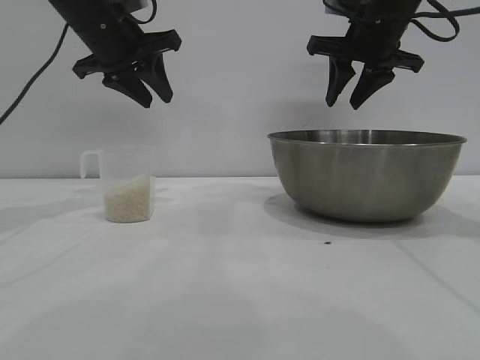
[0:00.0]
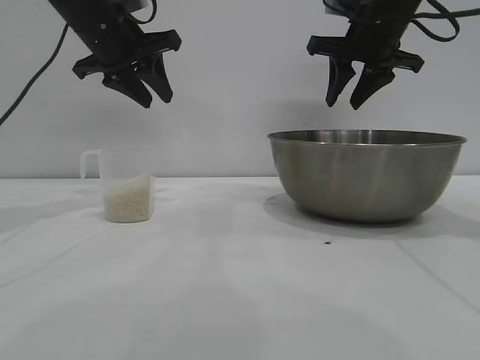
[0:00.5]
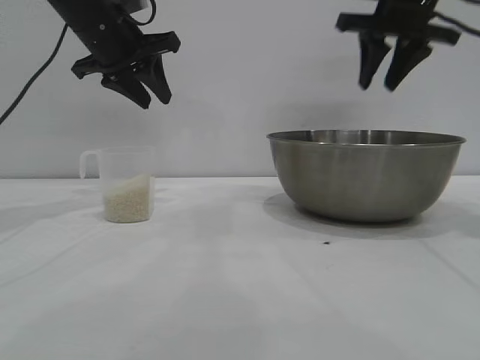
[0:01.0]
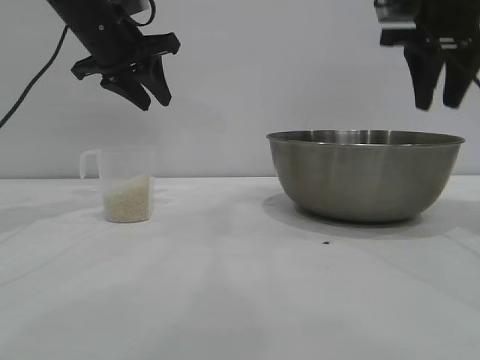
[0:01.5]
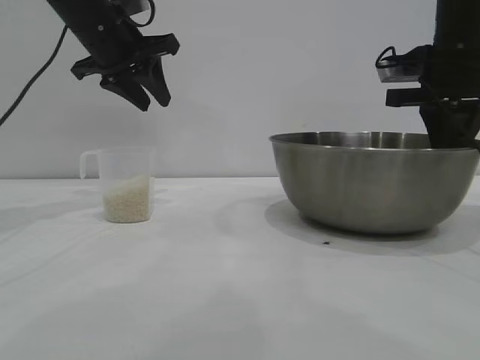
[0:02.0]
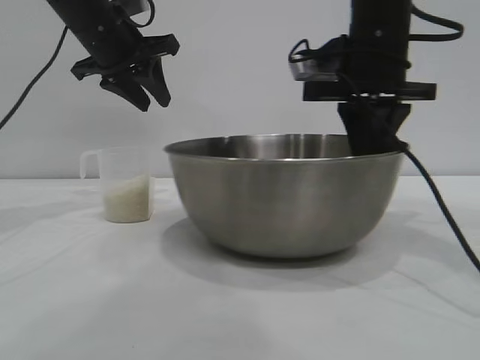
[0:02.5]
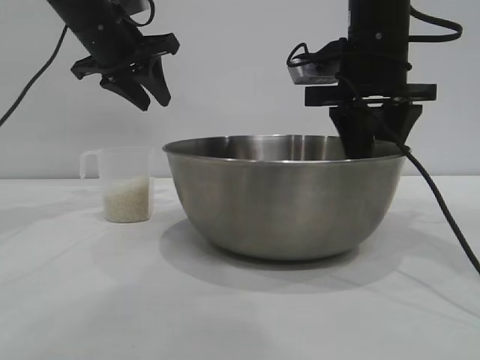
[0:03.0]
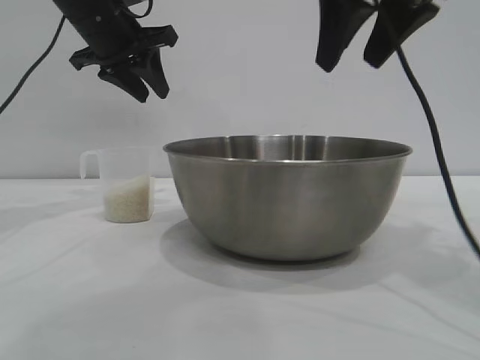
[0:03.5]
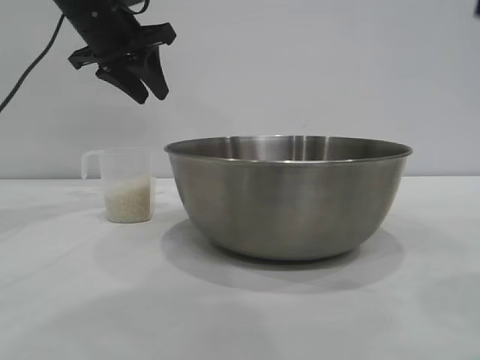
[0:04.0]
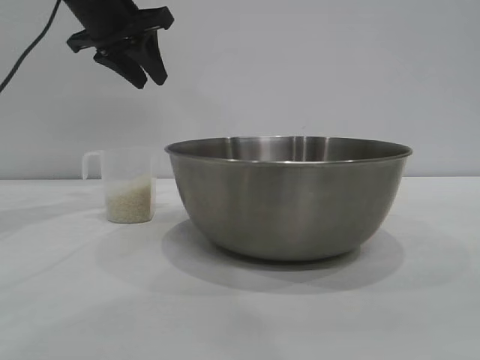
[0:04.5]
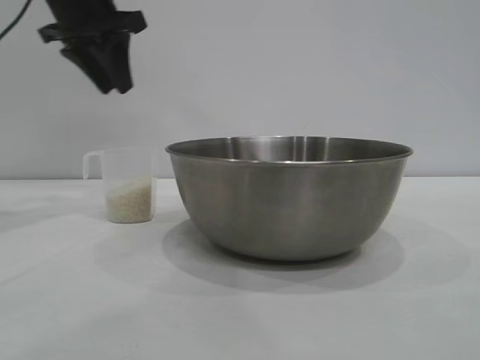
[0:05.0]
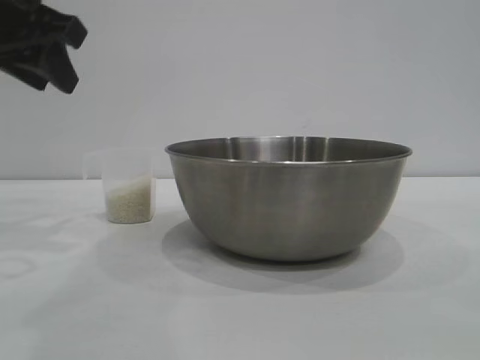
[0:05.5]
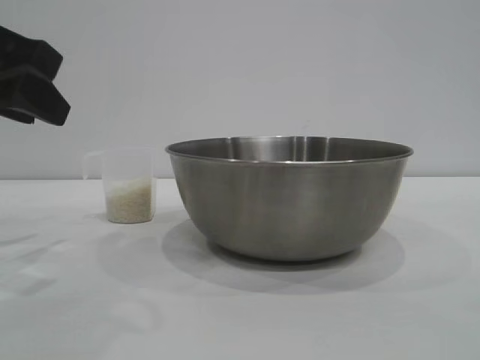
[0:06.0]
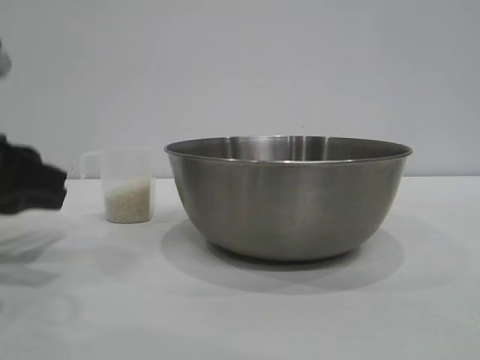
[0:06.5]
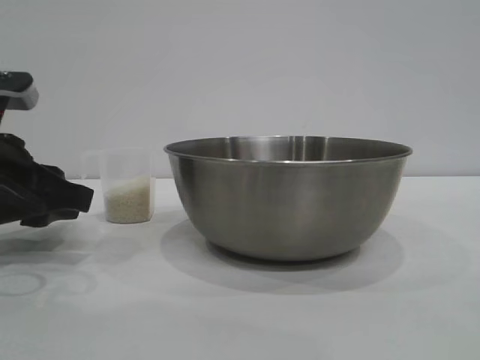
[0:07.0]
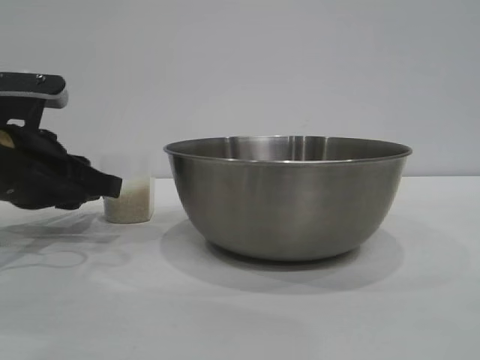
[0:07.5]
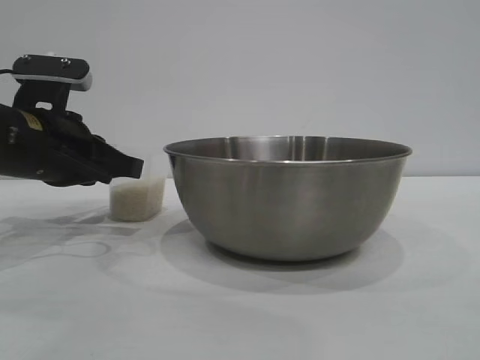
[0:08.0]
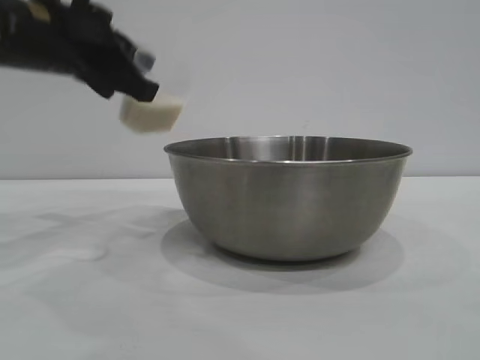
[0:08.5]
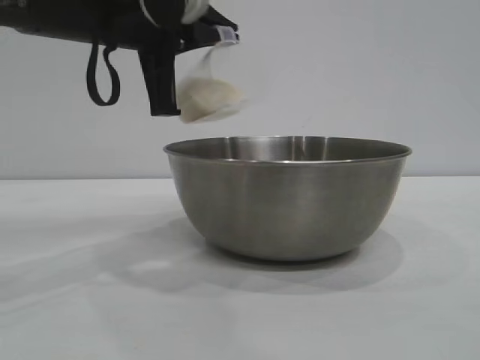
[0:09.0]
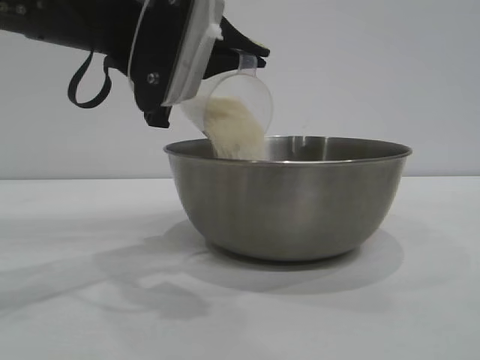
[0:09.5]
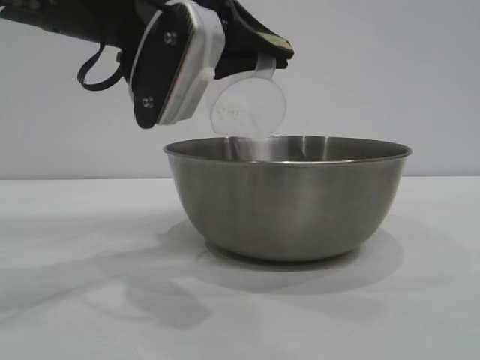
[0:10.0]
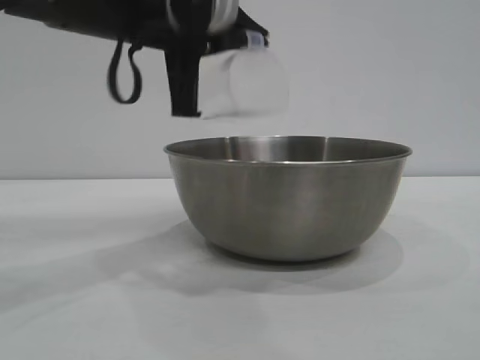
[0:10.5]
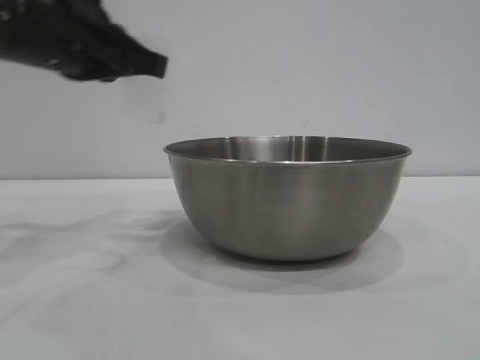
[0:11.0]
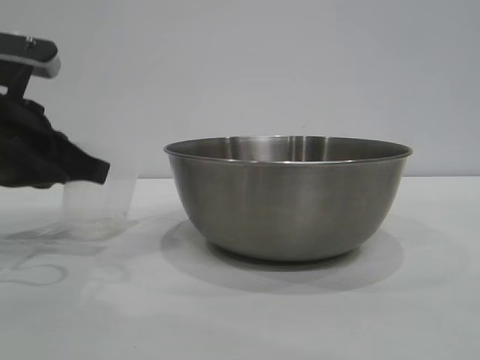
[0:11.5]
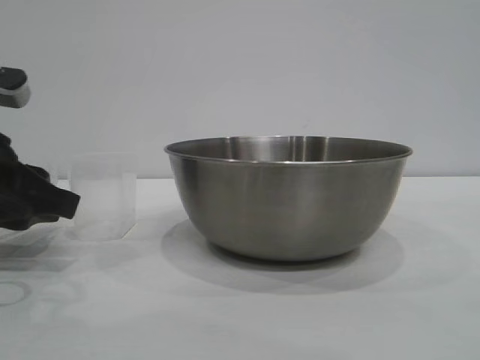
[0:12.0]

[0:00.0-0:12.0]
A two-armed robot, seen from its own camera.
Task of the whole recording: the right gripper grasp the rice container and place it in the center of the table, the left gripper grasp the rice scoop and pour the rice into the rice container.
Step, 0:00.0 to 0:03.0: Move the bowl to the center of view with the right gripper.
Step, 0:03.5 to 0:08.0: Pick up the cup with rice in it with the left gripper.
Step, 0:08.5 to 0:10.0: Pour the rice from the cup into the bowl with the left gripper.
